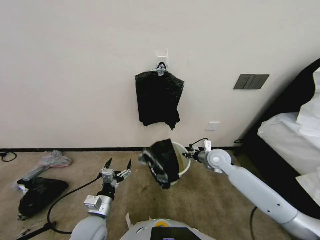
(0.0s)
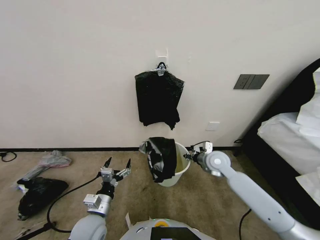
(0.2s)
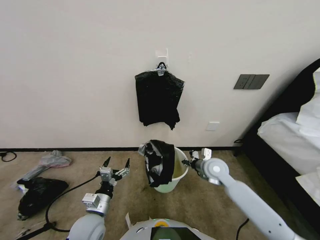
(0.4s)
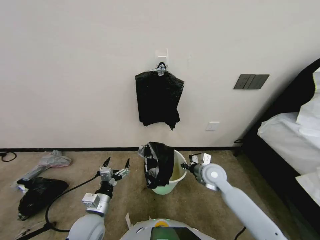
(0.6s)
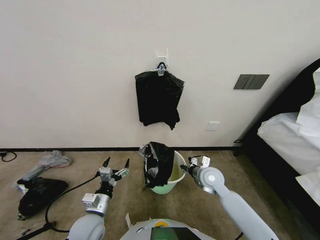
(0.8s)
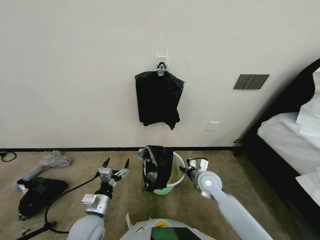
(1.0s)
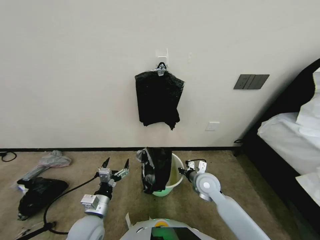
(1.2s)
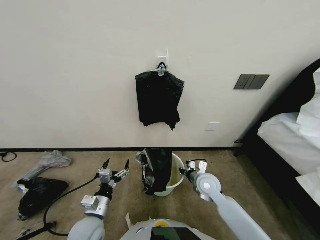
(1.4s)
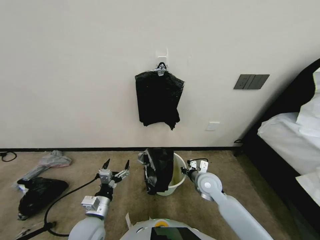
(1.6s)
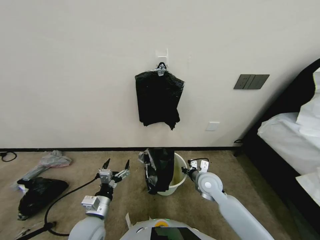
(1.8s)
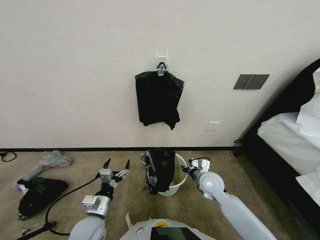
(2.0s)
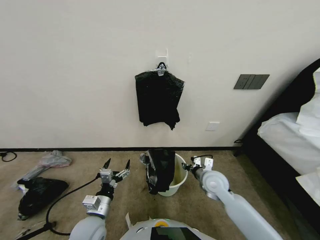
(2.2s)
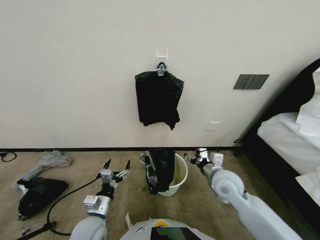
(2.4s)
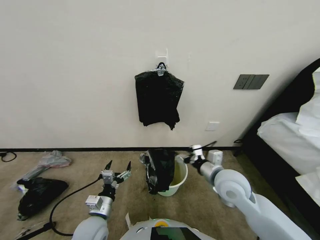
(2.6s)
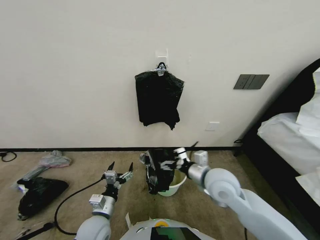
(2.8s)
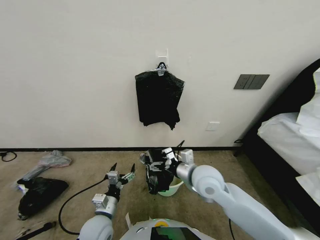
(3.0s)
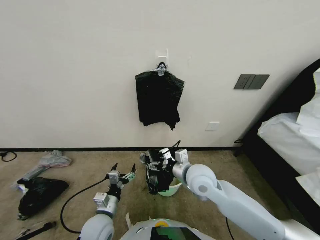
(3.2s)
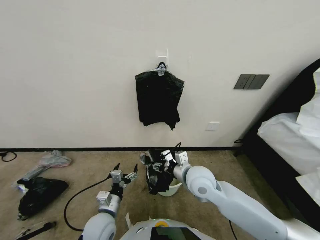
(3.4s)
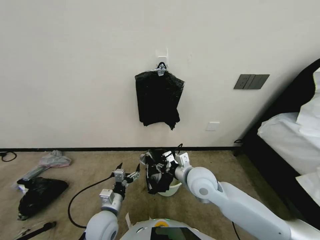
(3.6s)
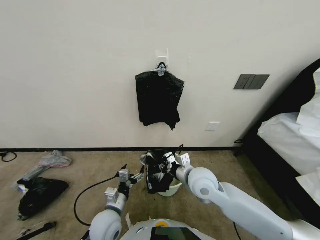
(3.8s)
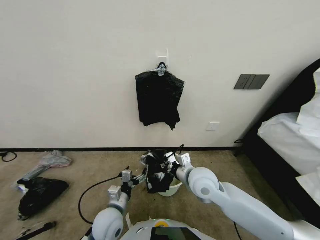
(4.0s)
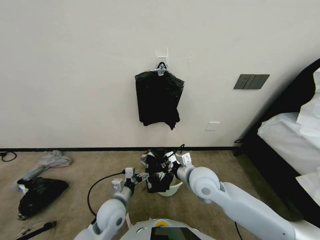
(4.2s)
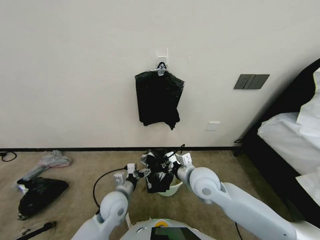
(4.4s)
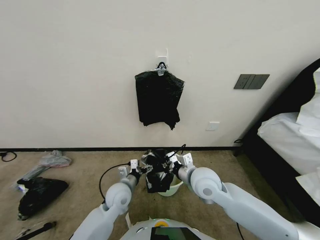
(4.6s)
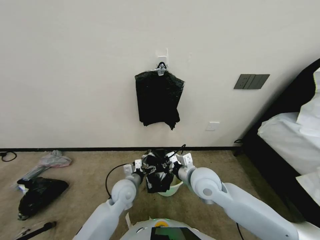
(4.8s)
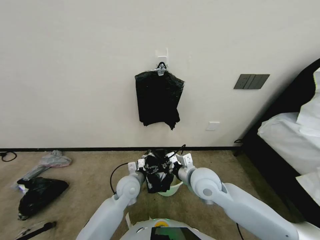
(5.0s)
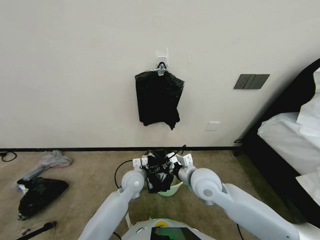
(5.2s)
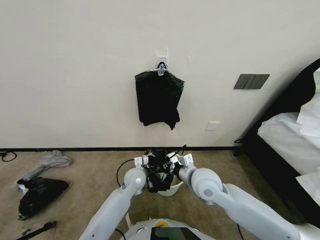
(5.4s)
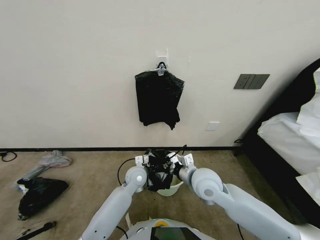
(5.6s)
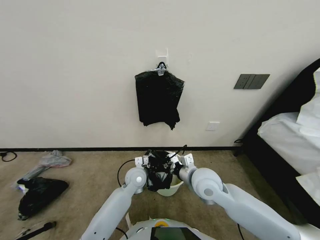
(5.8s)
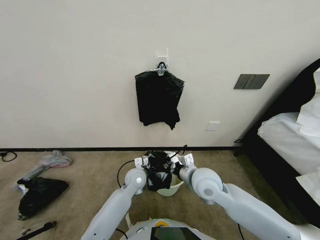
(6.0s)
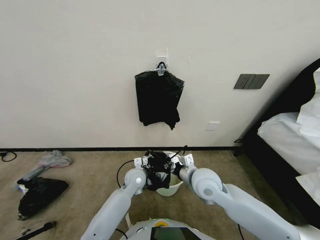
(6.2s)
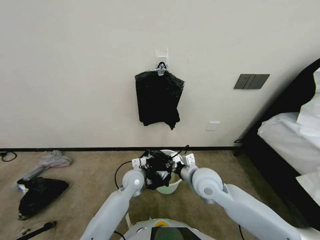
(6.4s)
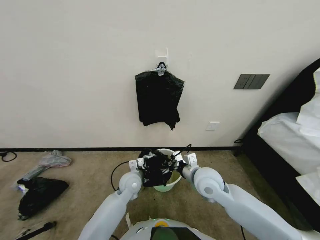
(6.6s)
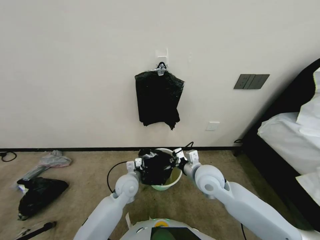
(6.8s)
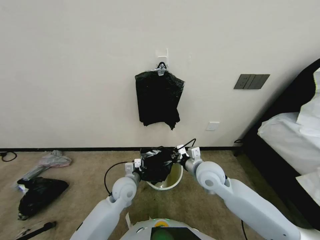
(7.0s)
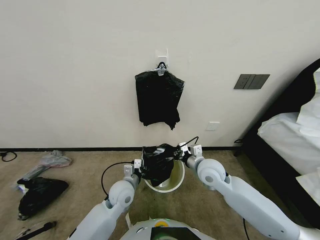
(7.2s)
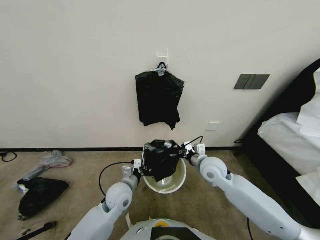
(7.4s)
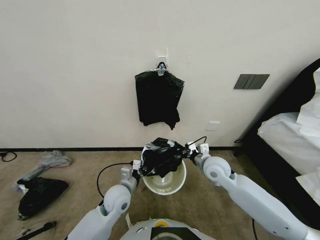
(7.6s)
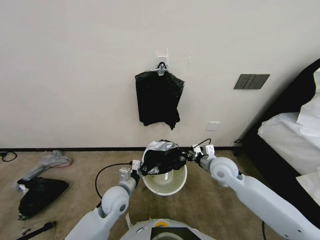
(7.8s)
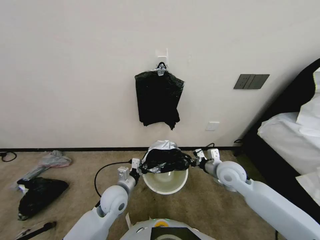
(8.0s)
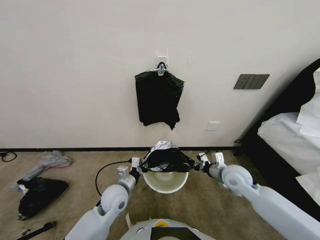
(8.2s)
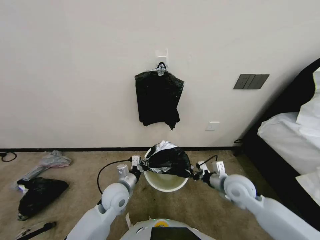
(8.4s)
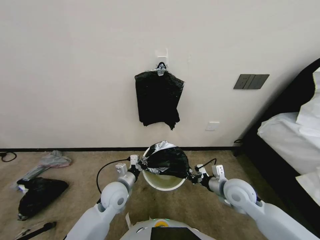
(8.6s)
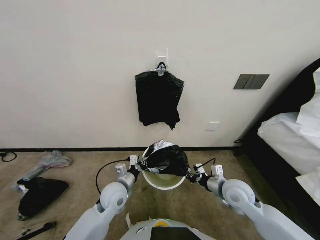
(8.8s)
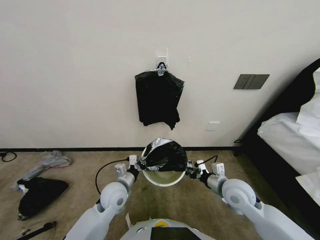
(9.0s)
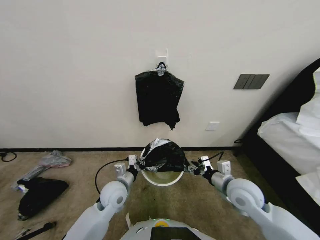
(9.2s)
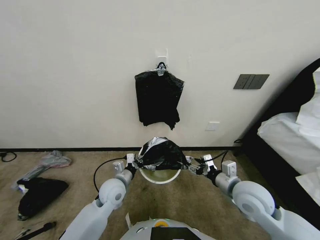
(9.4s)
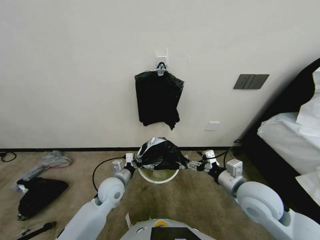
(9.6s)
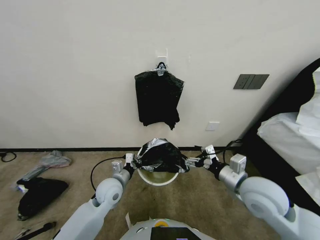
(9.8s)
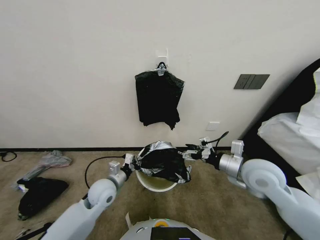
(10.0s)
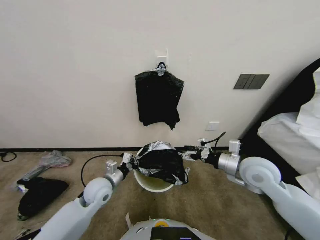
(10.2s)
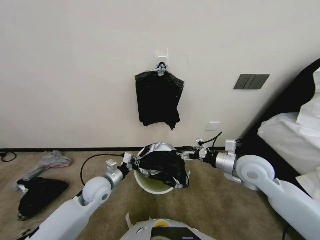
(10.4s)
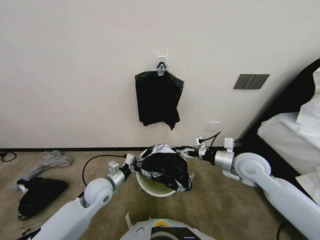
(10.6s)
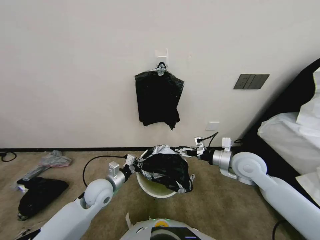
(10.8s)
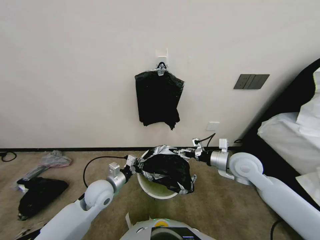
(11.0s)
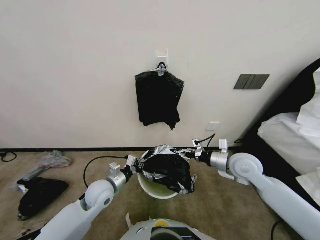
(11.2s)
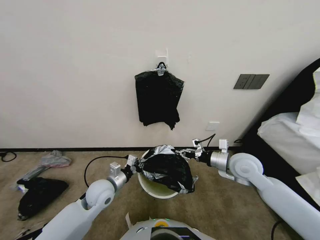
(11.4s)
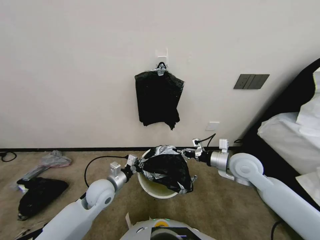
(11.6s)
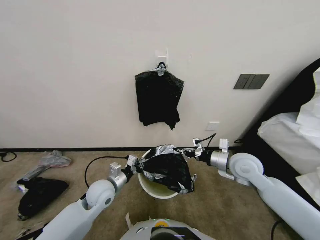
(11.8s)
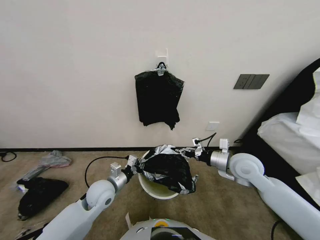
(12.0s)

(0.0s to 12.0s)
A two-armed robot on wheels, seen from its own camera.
Task of the whole recording: Place a trash bag onto the trash bin.
0.0s - 1.6s: The right gripper travels backward and to the left by about 10 cm.
1.6s - 3.0s: The right gripper goes approximately 10 cm upward, and opens up.
3.0s - 4.4s: The left gripper moves forward, approximately 5 cm. Meanwhile the right gripper closes up.
4.4s - 6.0s: The left gripper travels forward and to the right by approximately 15 cm, and closes its fingers.
6.0s - 7.6s: The right gripper shifts roughly 10 cm forward and to the right; the left gripper heads backward and to the left, covering roughly 10 cm, and closes up.
7.6s - 9.0s: The right gripper goes about 10 cm backward and to the right.
9.0s - 10.4s: The left gripper travels to the left by some 5 cm; the right gripper is displaced upward by some 10 cm, and opens up.
10.4s - 12.0s: The right gripper closes its fingers.

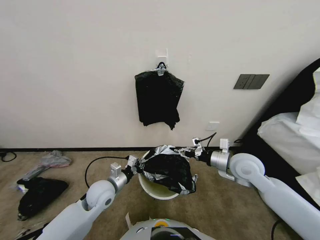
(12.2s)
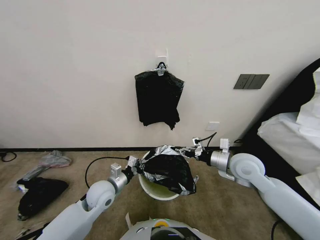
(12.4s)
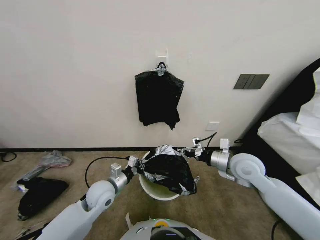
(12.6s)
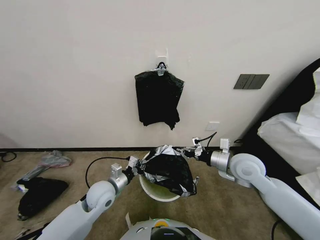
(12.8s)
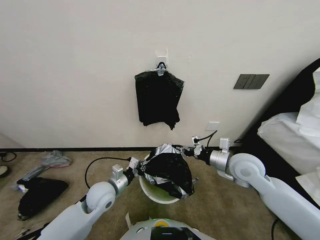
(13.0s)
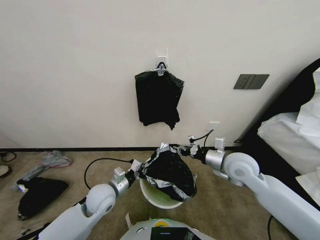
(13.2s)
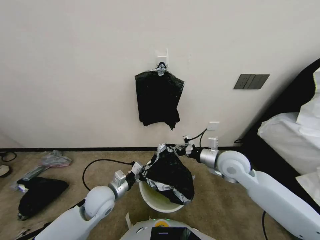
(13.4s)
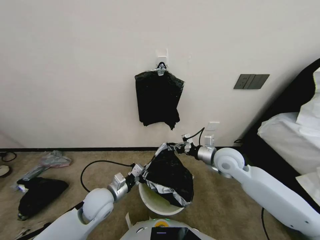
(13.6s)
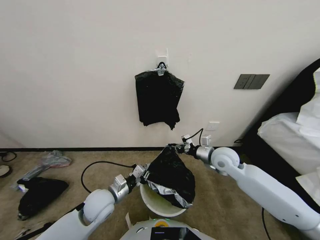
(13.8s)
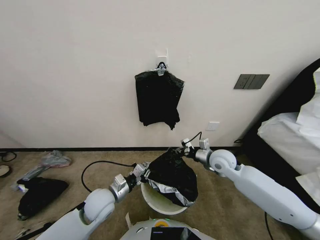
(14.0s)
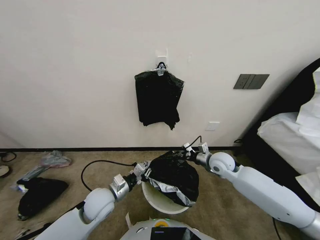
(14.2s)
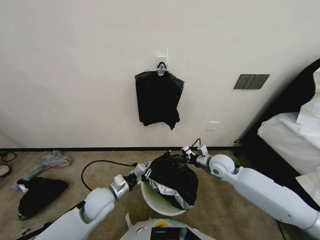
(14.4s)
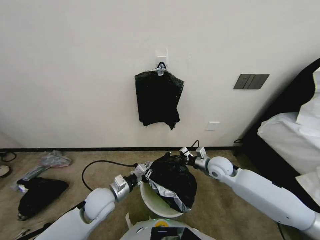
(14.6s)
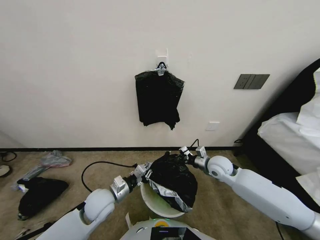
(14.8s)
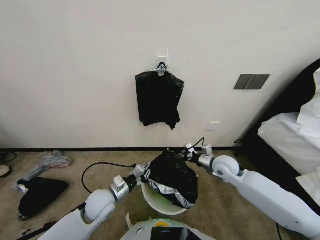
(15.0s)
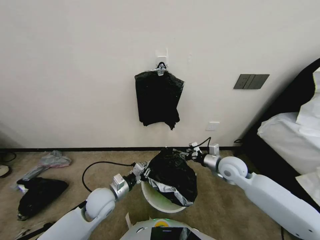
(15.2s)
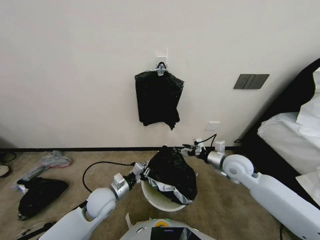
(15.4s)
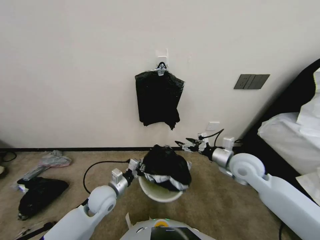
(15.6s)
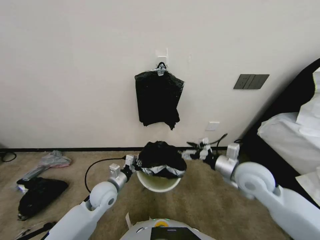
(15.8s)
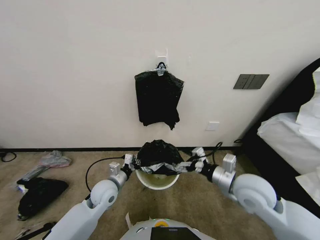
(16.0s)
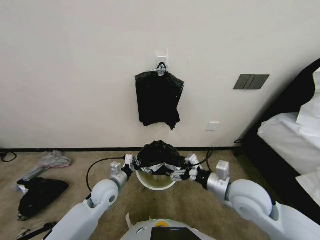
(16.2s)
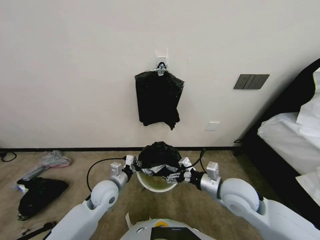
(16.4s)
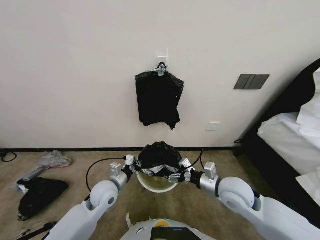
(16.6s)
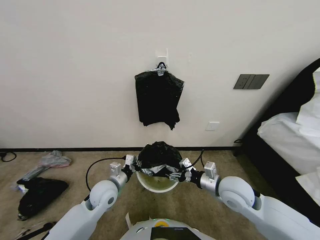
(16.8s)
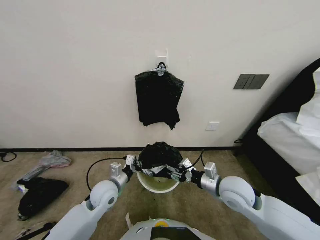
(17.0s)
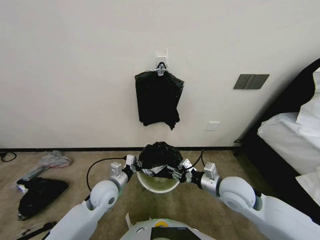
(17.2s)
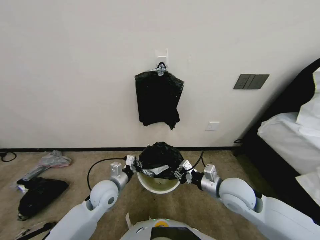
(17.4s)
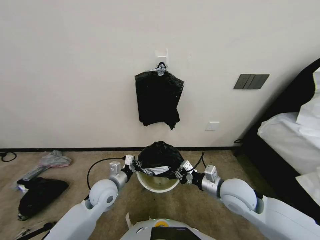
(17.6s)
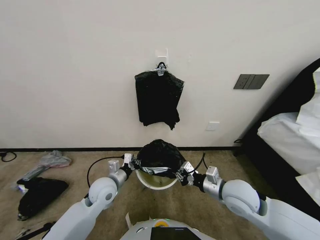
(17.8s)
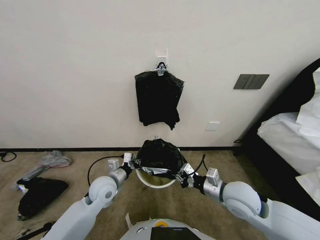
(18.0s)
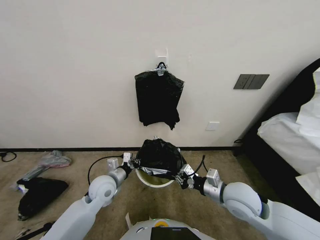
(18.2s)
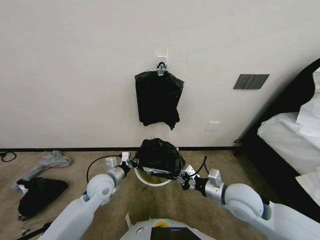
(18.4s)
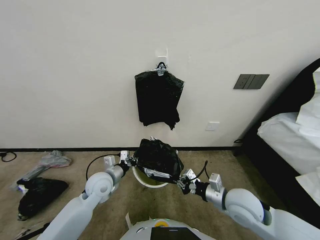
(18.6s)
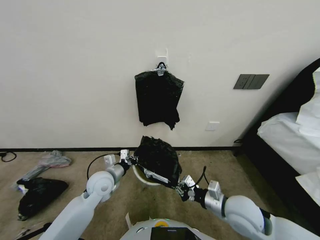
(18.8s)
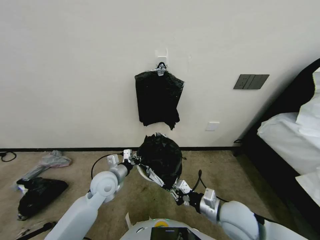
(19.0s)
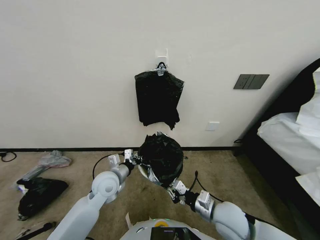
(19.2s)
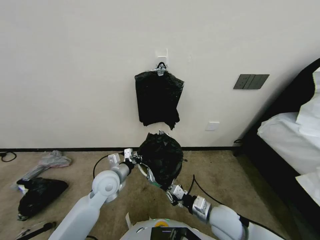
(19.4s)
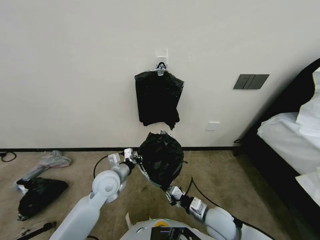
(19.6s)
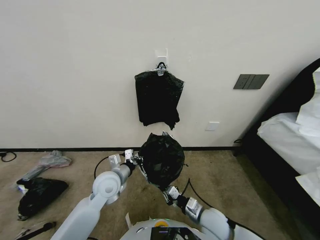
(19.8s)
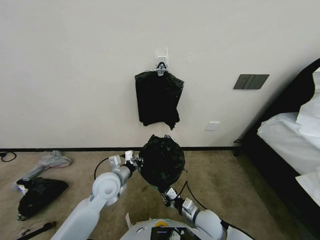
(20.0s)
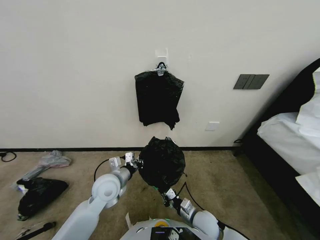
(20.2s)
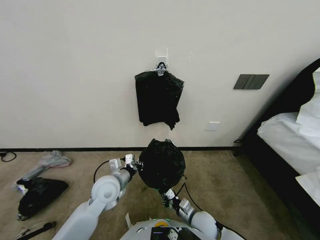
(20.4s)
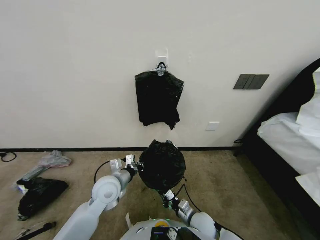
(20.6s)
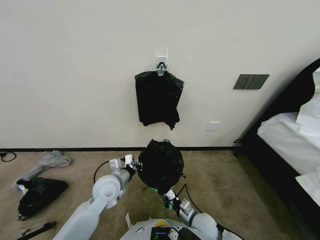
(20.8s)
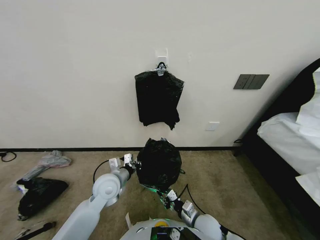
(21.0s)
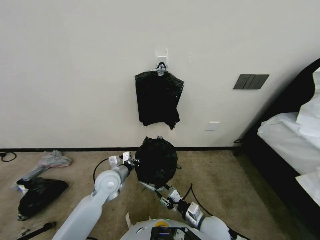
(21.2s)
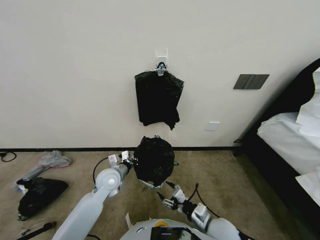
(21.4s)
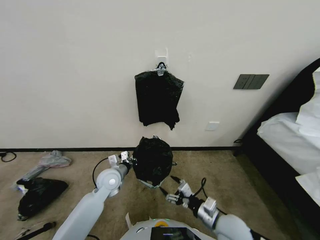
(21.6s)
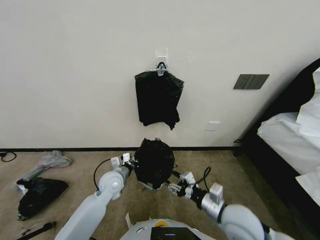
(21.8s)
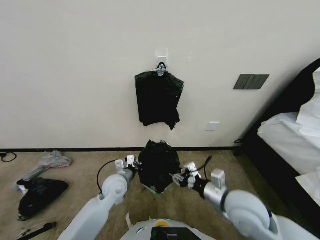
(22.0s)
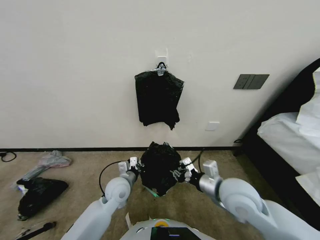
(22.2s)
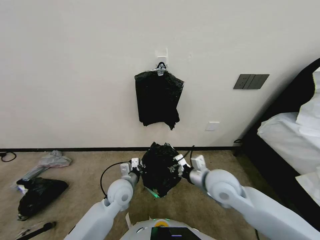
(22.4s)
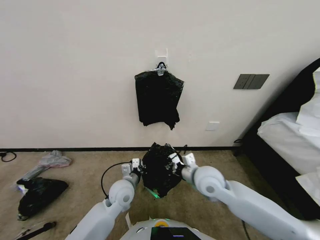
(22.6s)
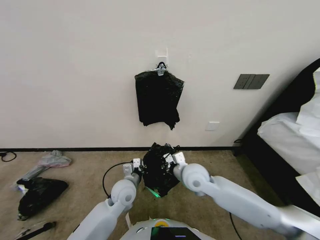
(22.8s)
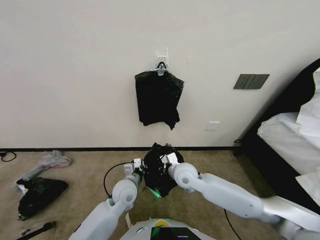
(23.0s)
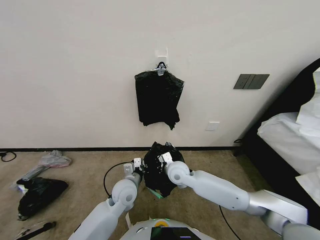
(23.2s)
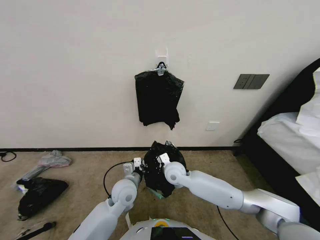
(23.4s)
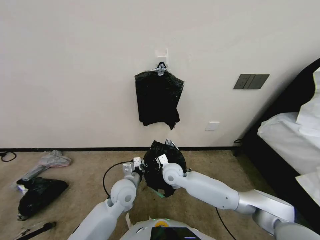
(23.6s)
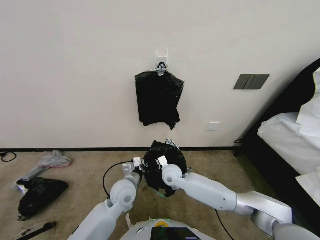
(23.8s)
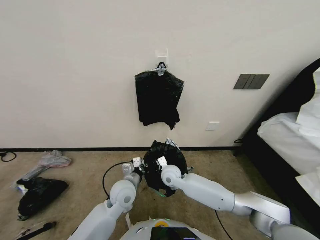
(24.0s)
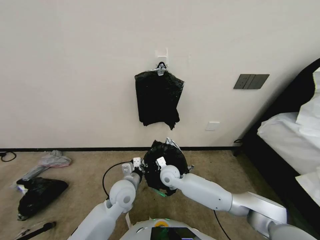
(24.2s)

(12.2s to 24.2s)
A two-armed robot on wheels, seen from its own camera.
Task of the whole recording: Place a trash bag onto the trash bin.
12.2s - 13.8s: The right gripper shifts by roughly 5 cm.
13.8s - 15.2s: The right gripper moves downward, approximately 5 cm, and opens.
15.2s - 16.6s: The right gripper moves backward and to the left, approximately 10 cm, and opens its fingers.
16.6s - 18.2s: The right gripper closes up.
18.2s - 19.8s: The right gripper heads downward, covering about 15 cm.
21.2s - 22.6s: The right gripper is displaced upward and forward by approximately 20 cm, and opens, then closes once more; the left gripper ends up about 5 cm from where it was.
22.6s - 24.2s: The right gripper heads downward, to the left and forward, covering some 20 cm.
